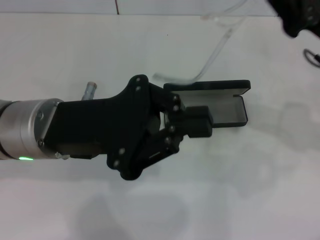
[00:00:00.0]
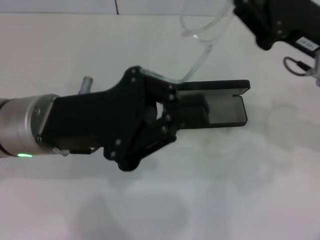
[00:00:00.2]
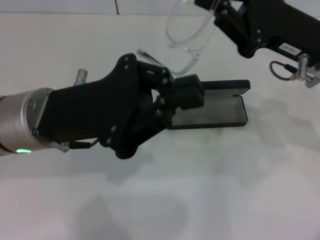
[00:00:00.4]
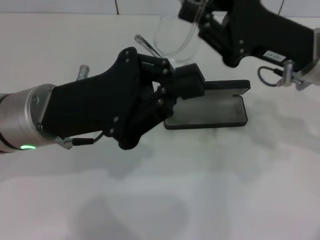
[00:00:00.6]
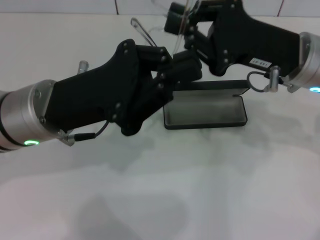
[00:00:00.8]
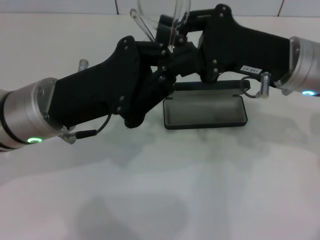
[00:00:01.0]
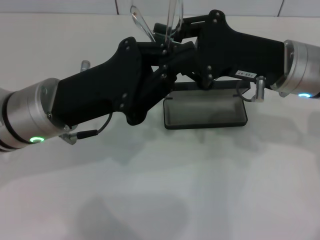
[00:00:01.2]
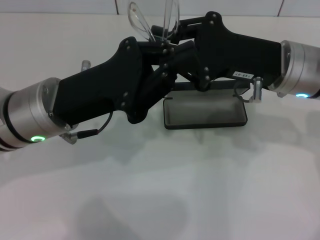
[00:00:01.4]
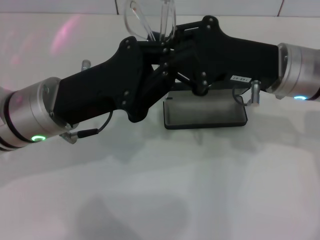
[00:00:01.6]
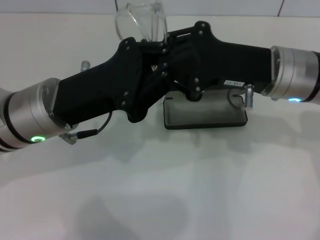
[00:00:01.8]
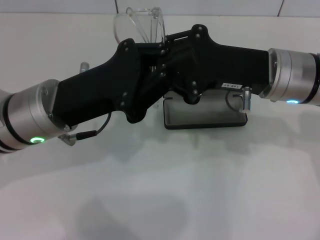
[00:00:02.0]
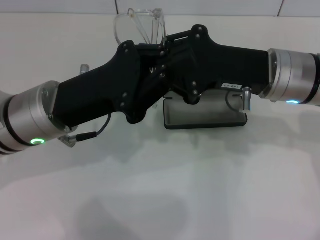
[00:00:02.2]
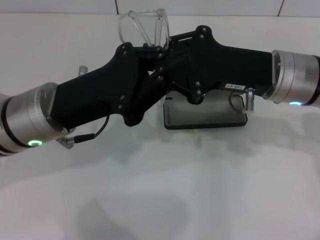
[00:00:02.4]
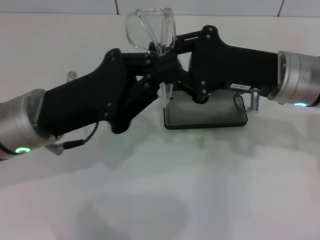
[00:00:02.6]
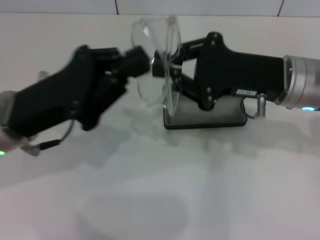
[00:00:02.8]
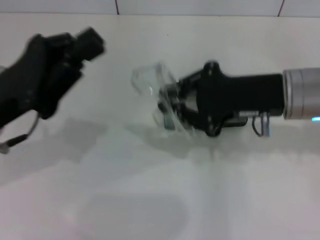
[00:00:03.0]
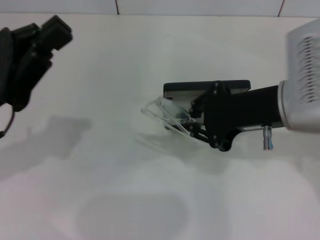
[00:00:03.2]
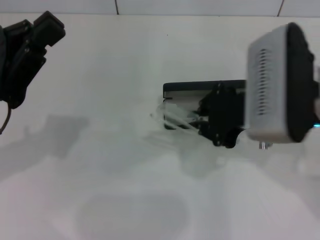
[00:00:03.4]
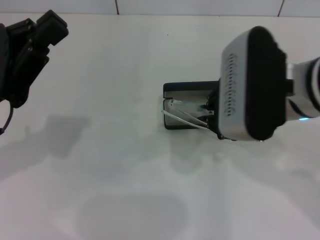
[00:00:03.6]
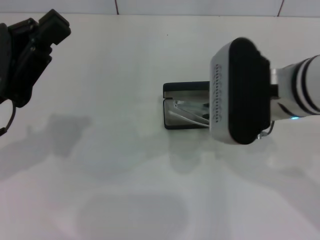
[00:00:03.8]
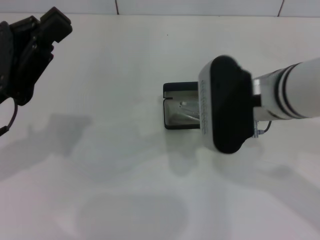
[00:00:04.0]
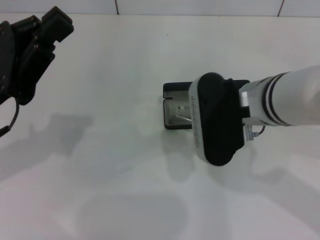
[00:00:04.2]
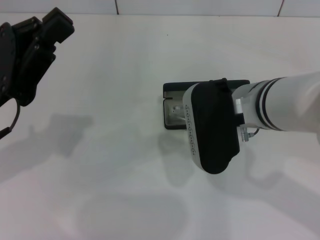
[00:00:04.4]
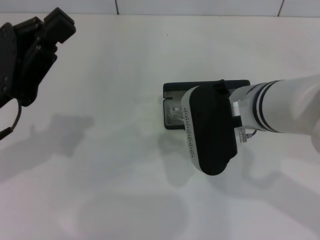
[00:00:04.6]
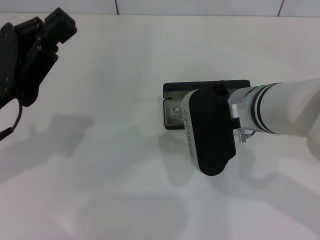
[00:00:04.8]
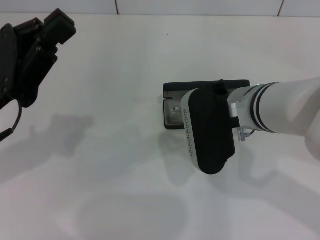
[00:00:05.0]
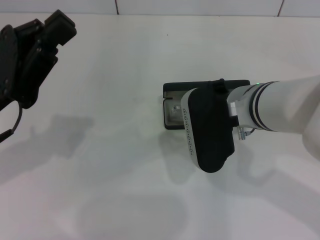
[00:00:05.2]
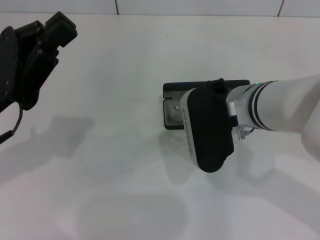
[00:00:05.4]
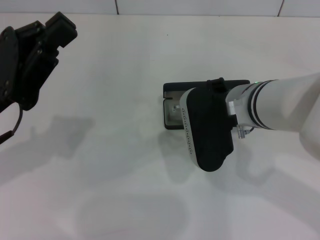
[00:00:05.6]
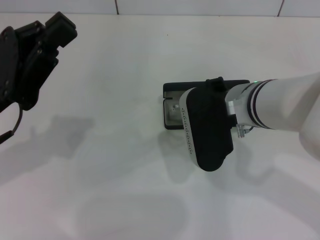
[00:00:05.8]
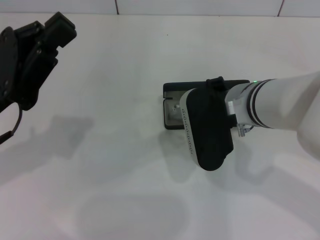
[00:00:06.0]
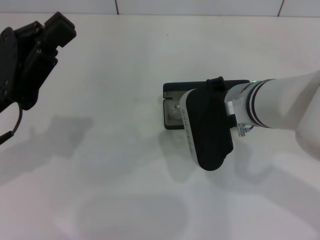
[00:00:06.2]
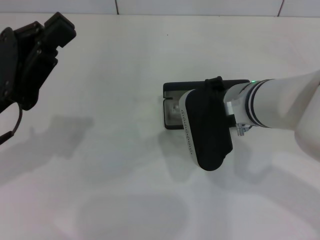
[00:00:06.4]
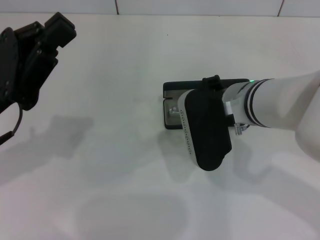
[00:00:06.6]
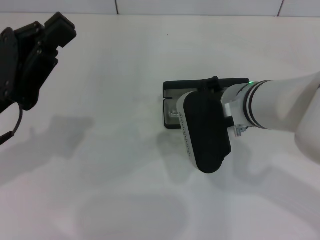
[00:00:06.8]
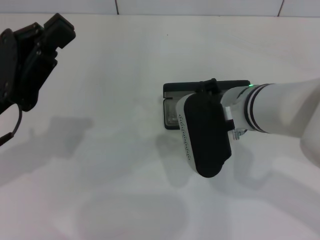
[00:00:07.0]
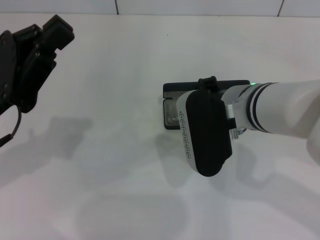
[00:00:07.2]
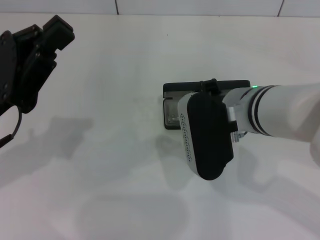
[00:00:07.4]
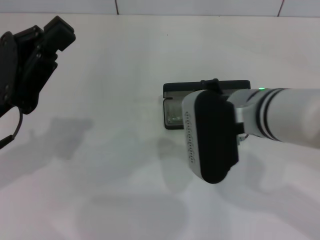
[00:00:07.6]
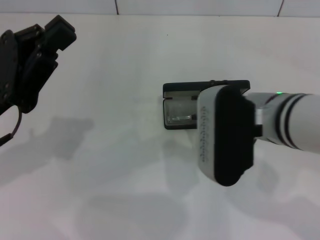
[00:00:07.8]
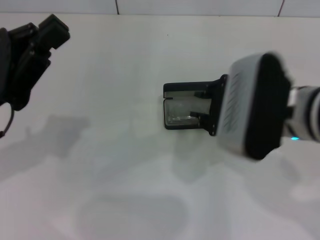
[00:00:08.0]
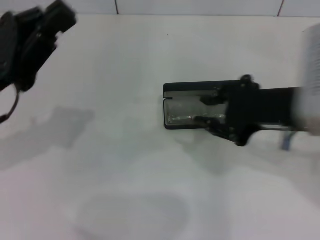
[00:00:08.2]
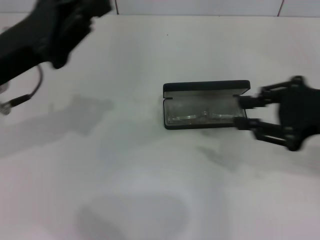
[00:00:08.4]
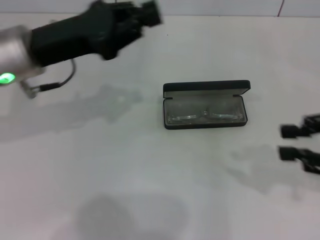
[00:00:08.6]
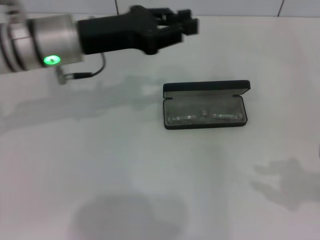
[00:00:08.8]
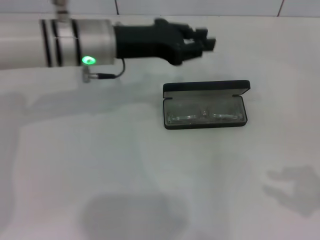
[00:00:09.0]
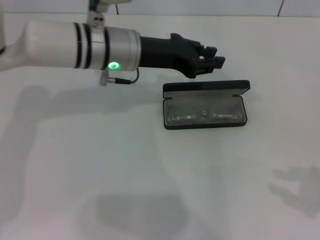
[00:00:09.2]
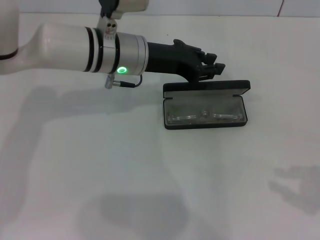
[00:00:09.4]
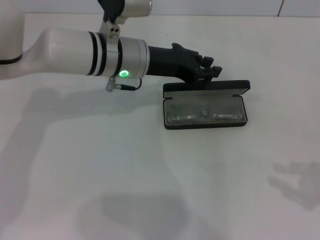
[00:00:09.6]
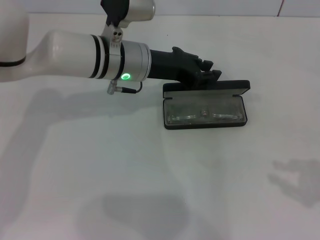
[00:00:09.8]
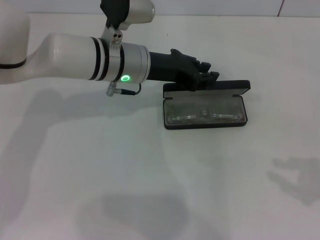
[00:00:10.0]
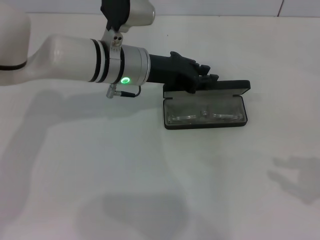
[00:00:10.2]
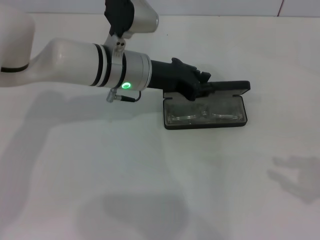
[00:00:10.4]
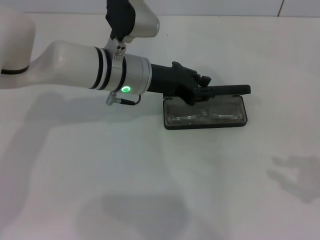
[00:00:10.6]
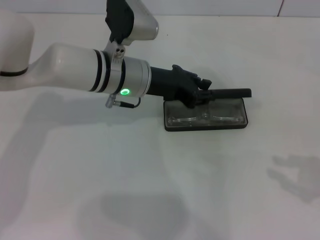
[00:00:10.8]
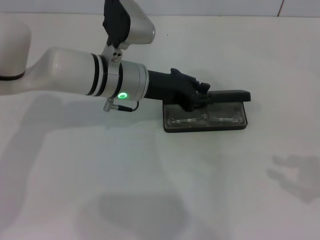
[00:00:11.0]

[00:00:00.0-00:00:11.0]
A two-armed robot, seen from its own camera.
Step, 00:00:00.0 to 00:00:02.2: Fold the frame with your left hand.
Step, 00:00:02.4 to 00:00:07.4: Put the glasses into the case with your right hand.
00:00:00.0 to 00:00:01.6: The right gripper moves to the left, some 5 cm.
00:00:01.6 to 00:00:03.2: The left gripper moves to the left, roughly 10 cm; the right gripper moves some 5 cm.
00:00:03.2 to 00:00:04.8: The right gripper heads to the left, covering approximately 5 cm.
00:00:04.8 to 00:00:06.2: The grippers make only small movements.
00:00:06.2 to 00:00:07.8: The right gripper shifts by some 5 cm.
00:00:07.8 to 00:00:09.4: The right gripper shifts approximately 25 cm to the right, while the left gripper moves to the right and forward, approximately 20 cm.
00:00:09.4 to 00:00:11.0: There are only small adjustments of the grippers.

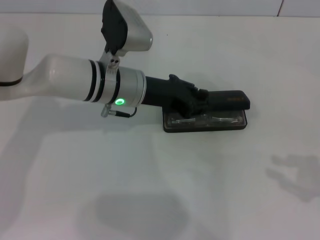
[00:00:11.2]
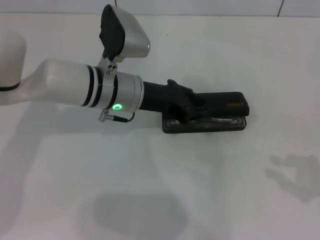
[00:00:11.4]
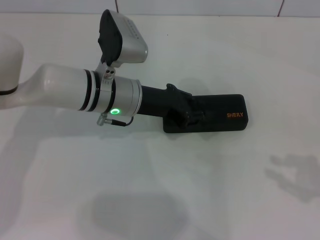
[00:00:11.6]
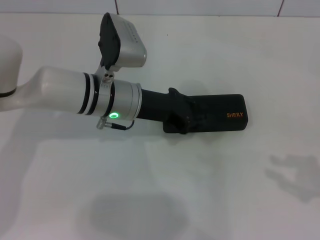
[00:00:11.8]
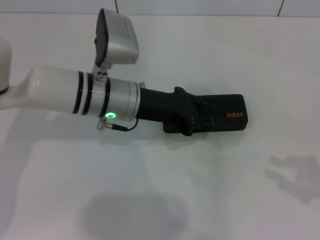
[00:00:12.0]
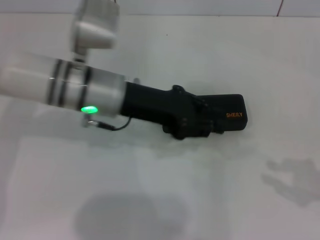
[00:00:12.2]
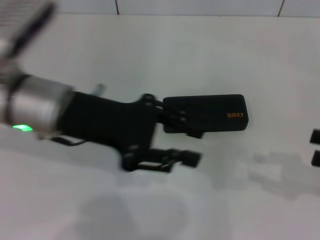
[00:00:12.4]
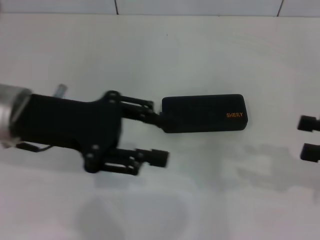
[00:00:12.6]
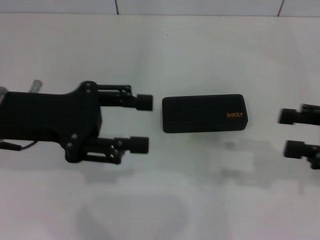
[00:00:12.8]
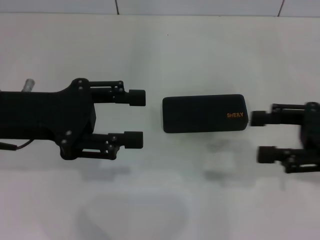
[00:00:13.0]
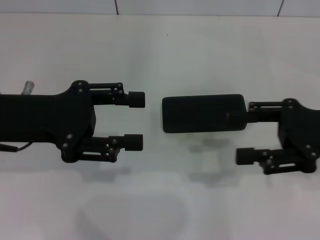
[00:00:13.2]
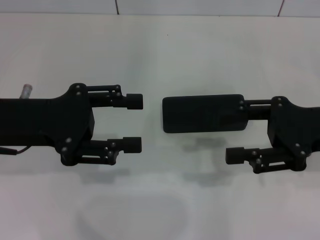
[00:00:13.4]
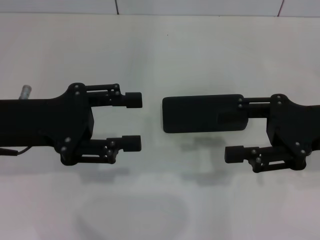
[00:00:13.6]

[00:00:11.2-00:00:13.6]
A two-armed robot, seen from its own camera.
00:00:11.2 to 00:00:12.4: The left gripper is displaced backward, to the left and upward by approximately 15 cm.
00:00:12.4 to 00:00:13.6: The left gripper heads to the left, covering roughly 5 cm, and opens; the right gripper moves to the left and forward, roughly 10 cm, and opens up.
